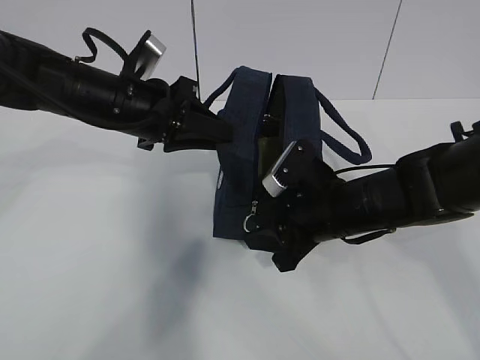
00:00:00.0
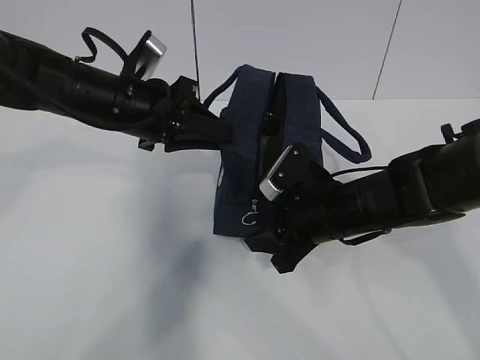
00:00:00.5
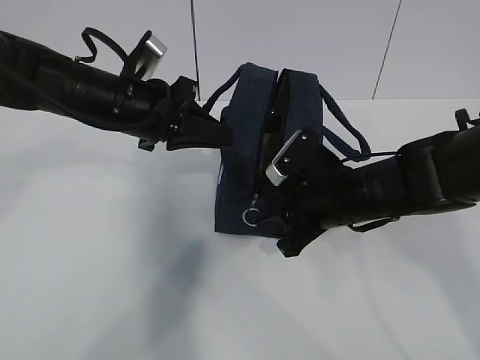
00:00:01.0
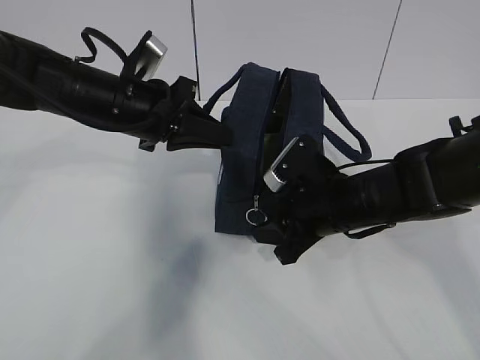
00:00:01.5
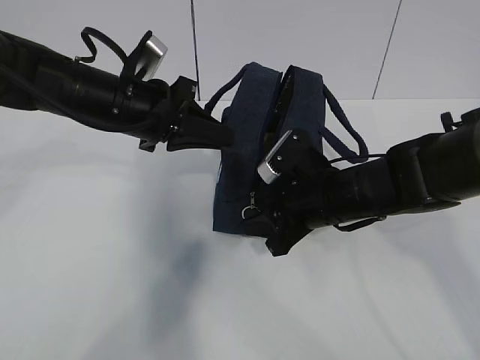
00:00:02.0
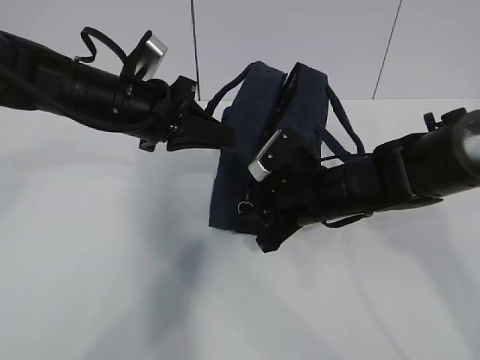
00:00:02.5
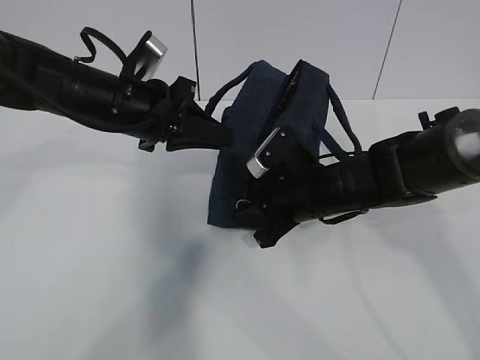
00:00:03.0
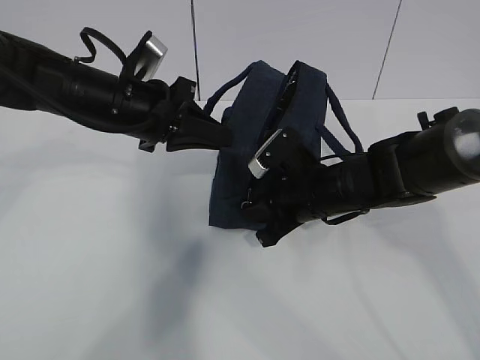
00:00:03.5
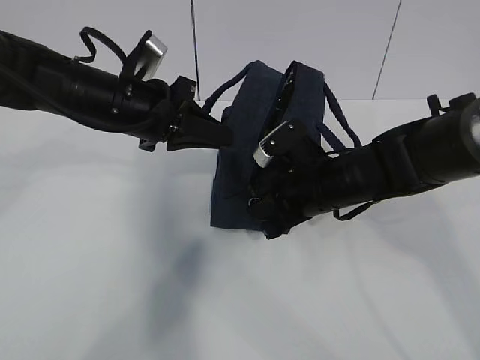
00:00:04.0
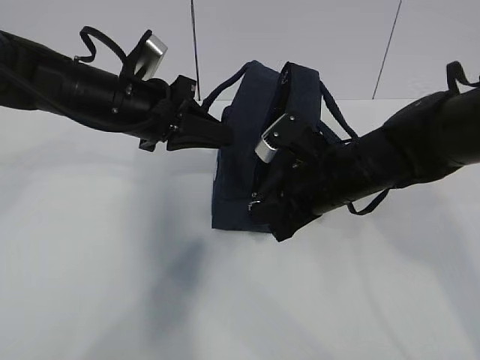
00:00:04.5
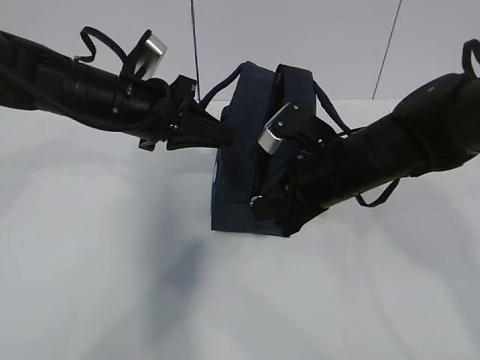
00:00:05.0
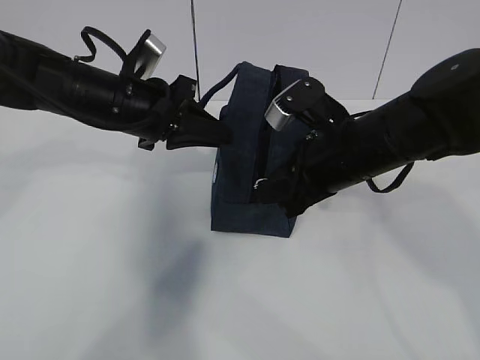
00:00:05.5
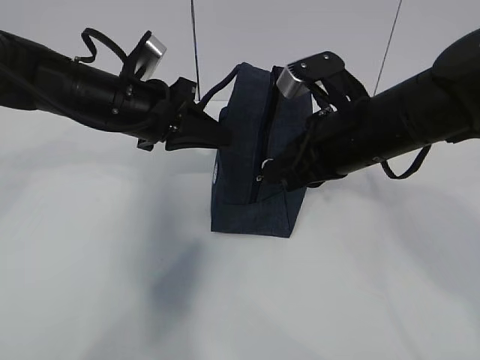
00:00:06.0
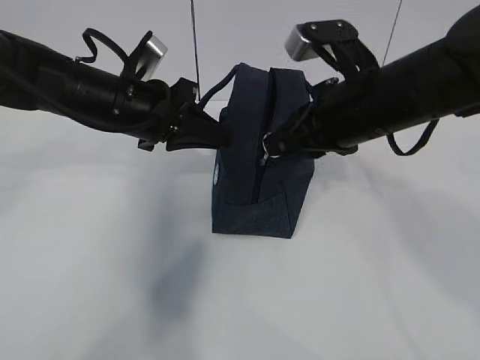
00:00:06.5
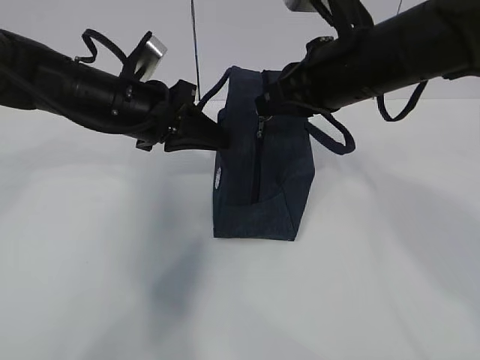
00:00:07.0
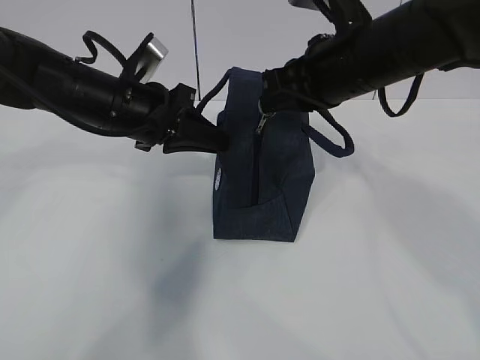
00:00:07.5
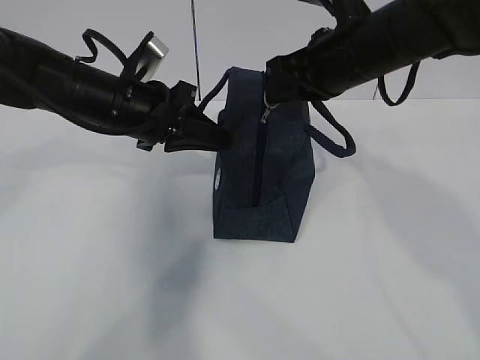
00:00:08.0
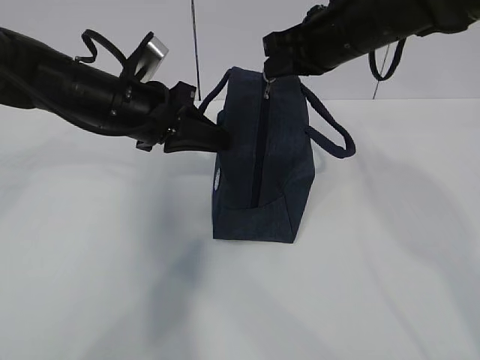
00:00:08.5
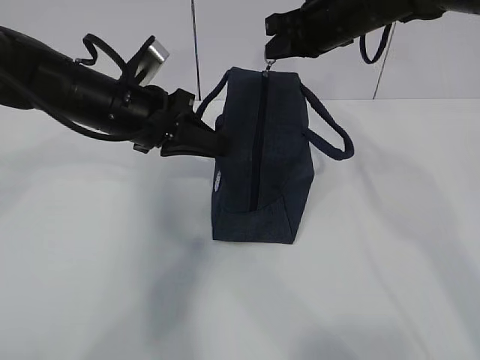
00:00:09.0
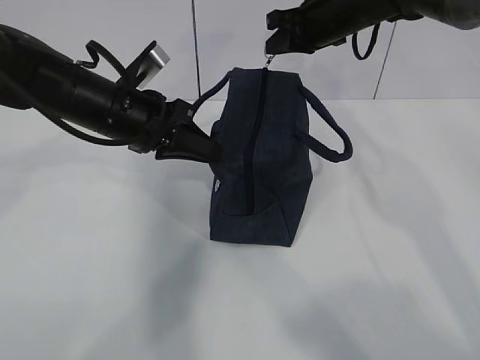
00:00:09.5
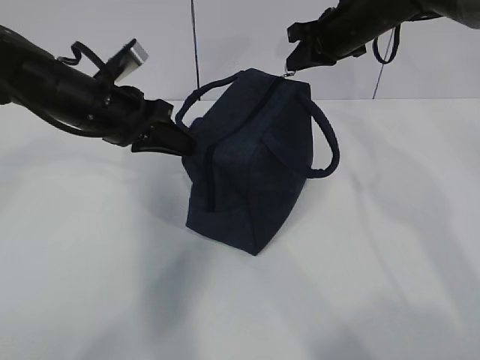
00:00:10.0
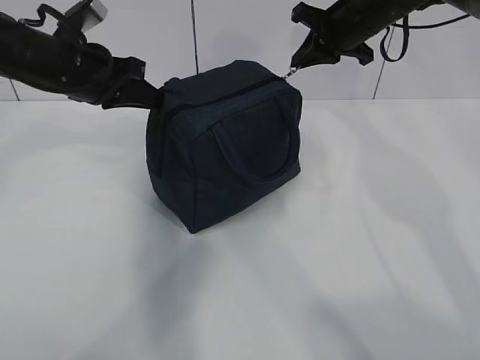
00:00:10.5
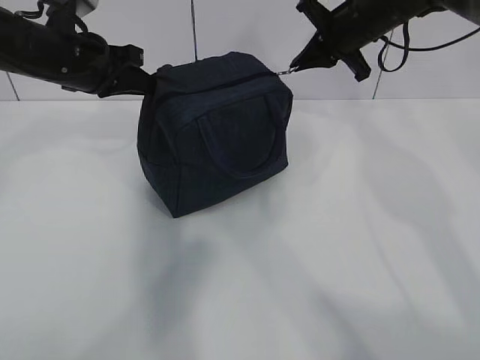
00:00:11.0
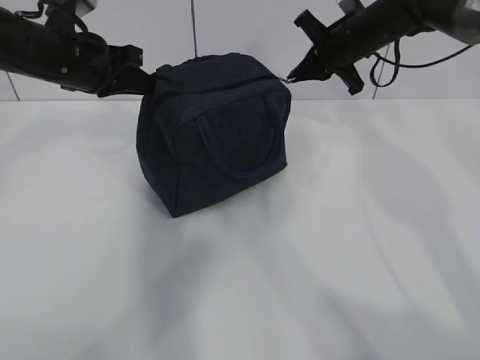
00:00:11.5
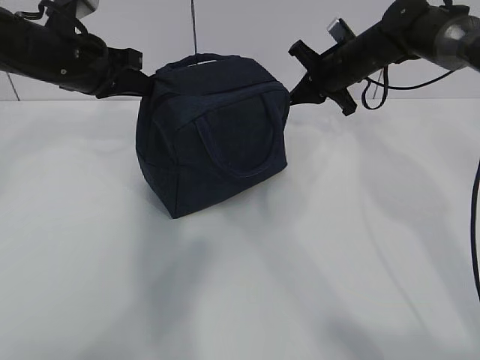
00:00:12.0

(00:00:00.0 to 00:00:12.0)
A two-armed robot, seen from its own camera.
Step, 00:00:00.0 - 00:00:04.0: Pull the zipper with your right hand.
00:00:00.0 - 00:00:02.0: The left gripper closes up.
00:00:02.0 - 00:00:04.0: The right gripper closes up.
00:00:04.0 - 00:00:06.0: The right gripper moves upward, roughly 10 cm.
00:00:06.0 - 00:00:08.0: The right gripper is displaced forward and upward by approximately 10 cm.
00:00:08.0 - 00:00:10.0: The right gripper goes roughly 15 cm forward.
00:00:10.0 - 00:00:12.0: The left gripper ends up roughly 5 cm from where it was; the right gripper heads downward, covering roughly 5 cm.

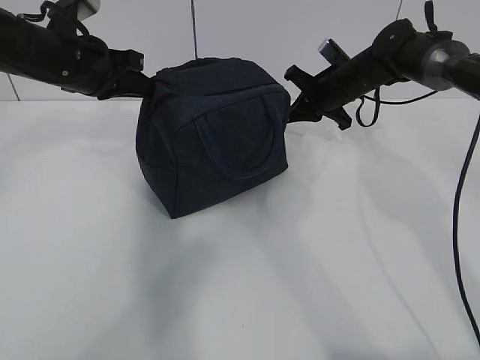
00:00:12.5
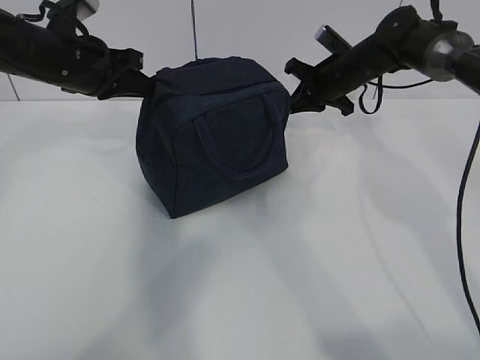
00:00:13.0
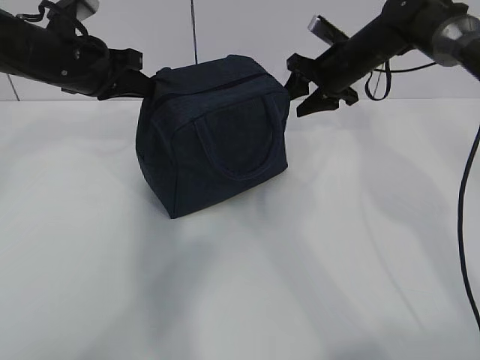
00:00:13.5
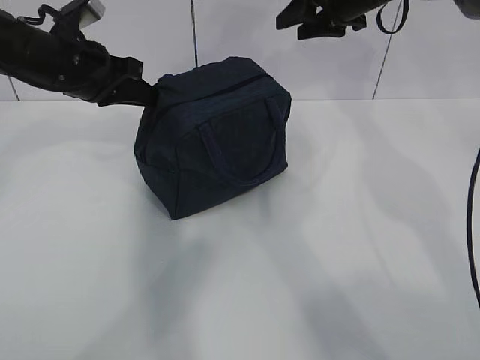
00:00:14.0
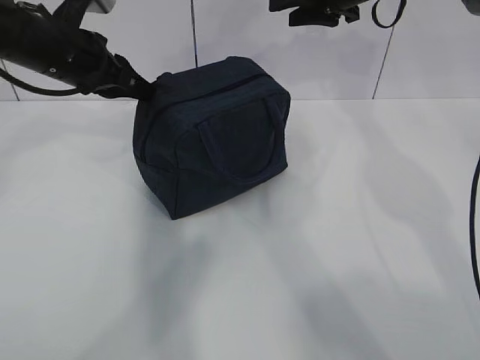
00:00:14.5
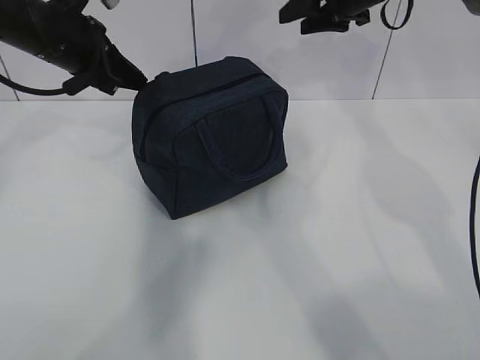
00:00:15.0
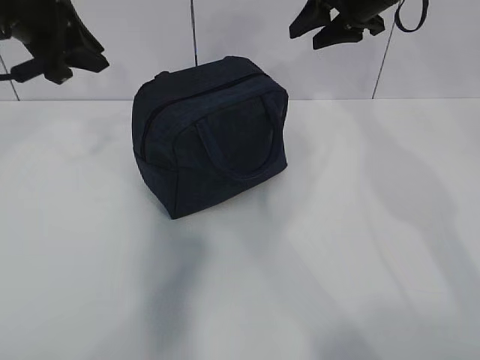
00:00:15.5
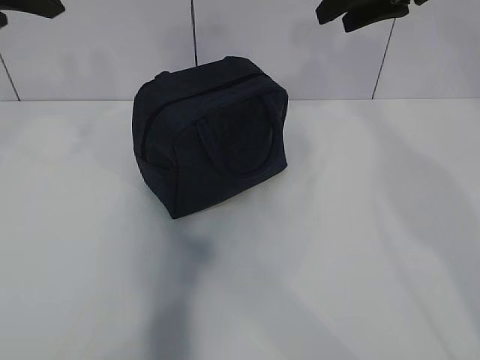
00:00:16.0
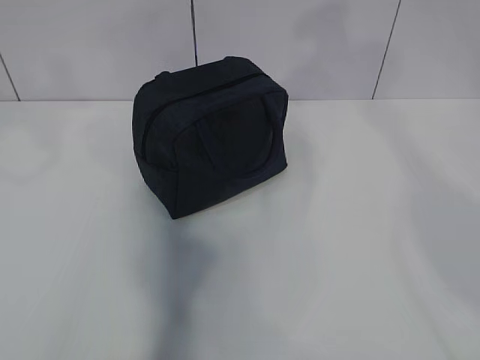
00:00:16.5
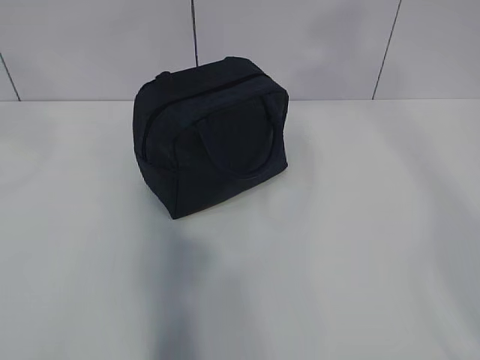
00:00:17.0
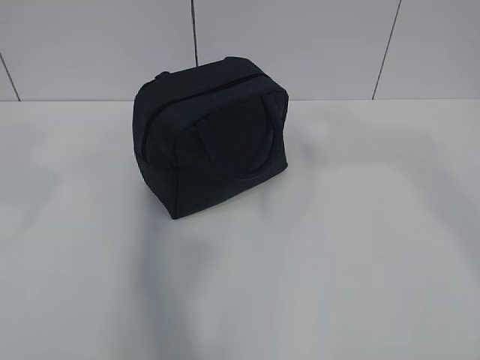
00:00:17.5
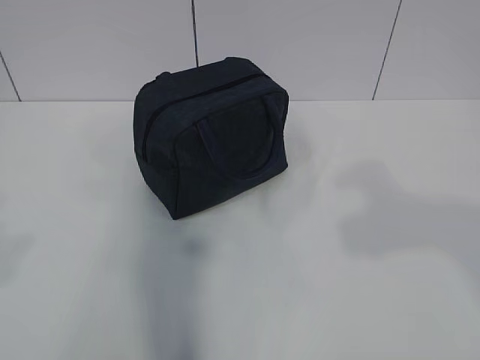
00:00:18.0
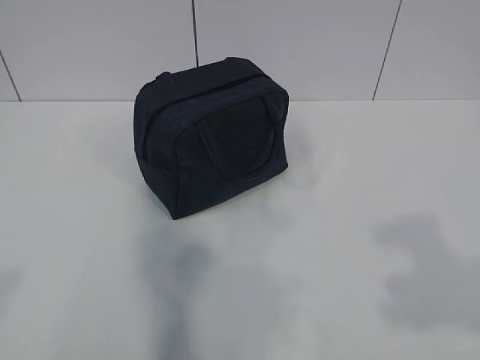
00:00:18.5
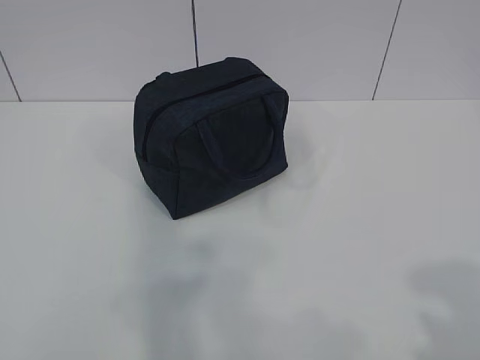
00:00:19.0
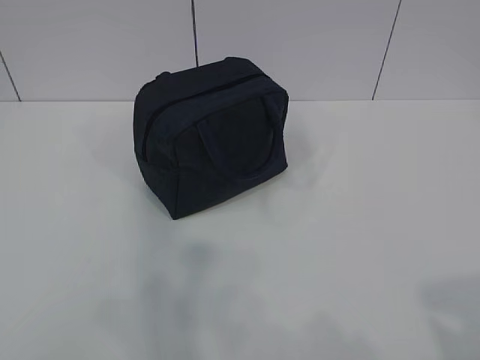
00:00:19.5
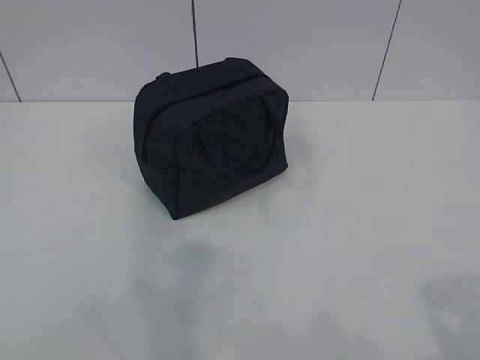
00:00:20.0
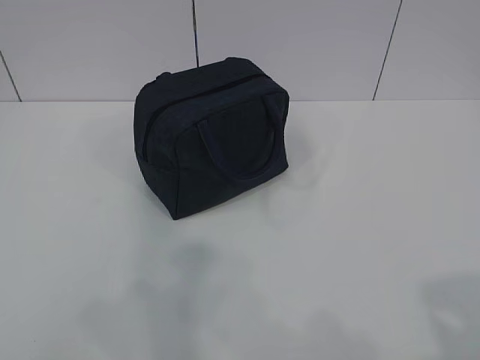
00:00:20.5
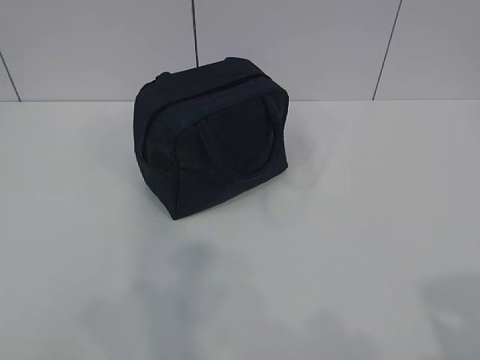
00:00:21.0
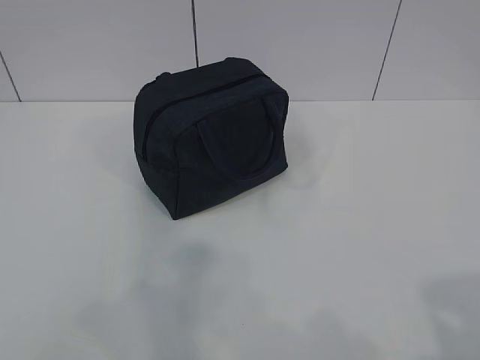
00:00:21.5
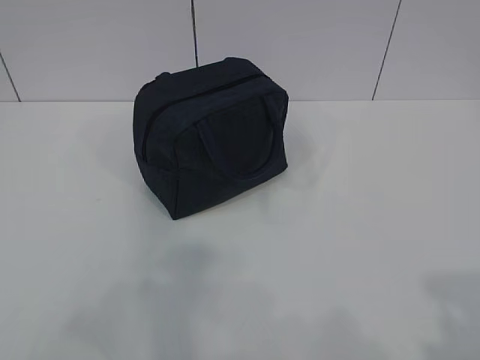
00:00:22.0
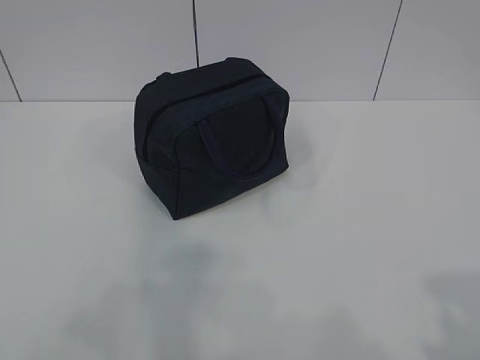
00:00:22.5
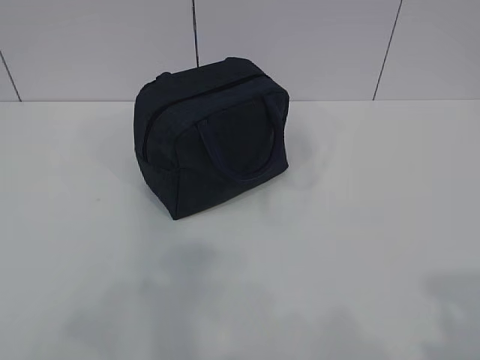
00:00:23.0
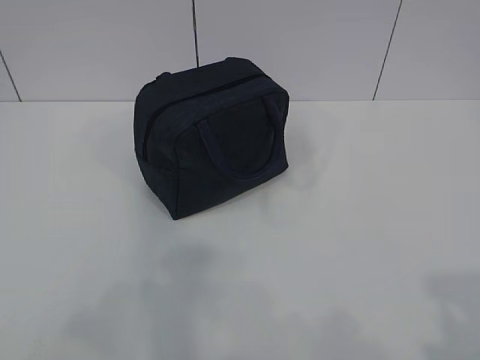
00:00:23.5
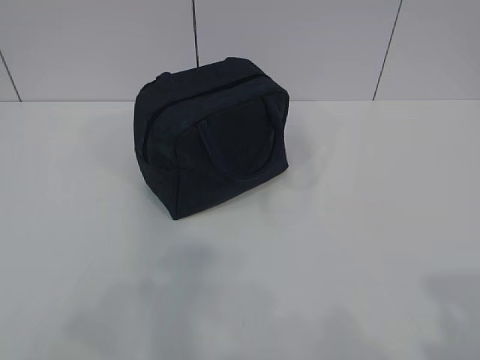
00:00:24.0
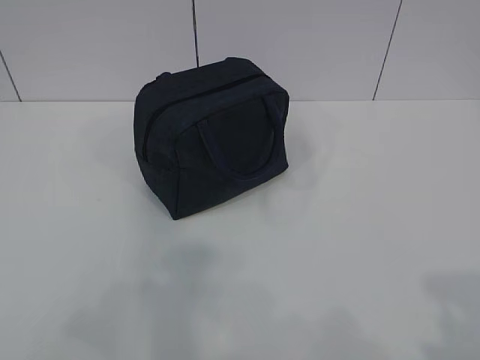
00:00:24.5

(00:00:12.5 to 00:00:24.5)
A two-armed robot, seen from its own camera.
00:00:12.5 - 00:00:14.5: The right gripper is displaced upward by some 15 cm, and opens up.
00:00:14.5 - 00:00:16.5: The left gripper is displaced upward and backward by approximately 25 cm. Meanwhile the right gripper travels backward and upward by about 25 cm.
00:00:16.5 - 00:00:18.5: Both grippers travel together backward and downward, roughly 30 cm. The left gripper opens.
00:00:22.5 - 00:00:24.5: Both grippers stay put.

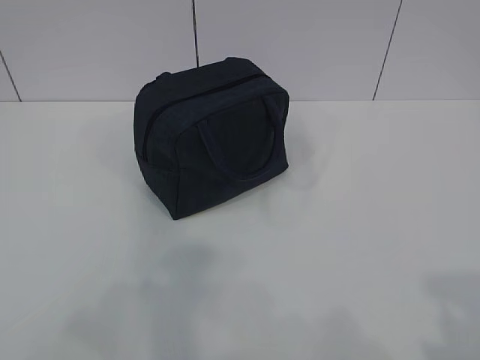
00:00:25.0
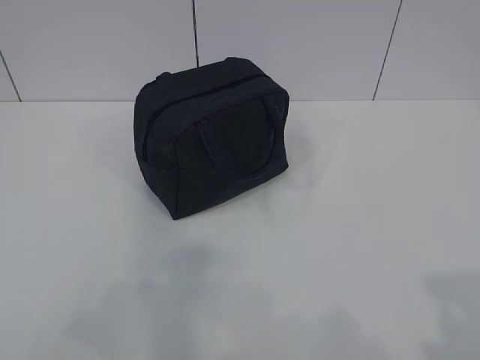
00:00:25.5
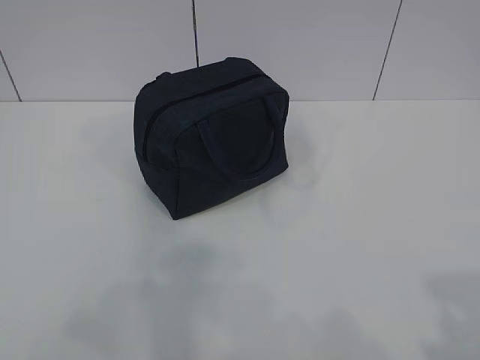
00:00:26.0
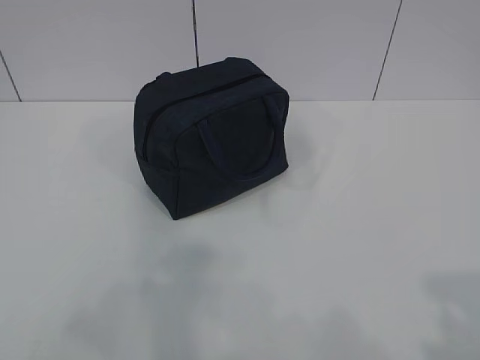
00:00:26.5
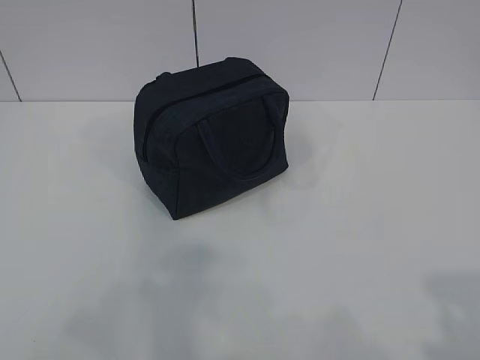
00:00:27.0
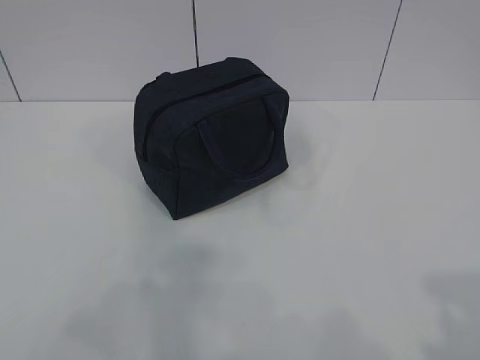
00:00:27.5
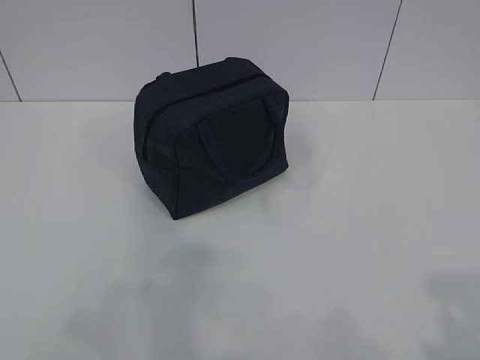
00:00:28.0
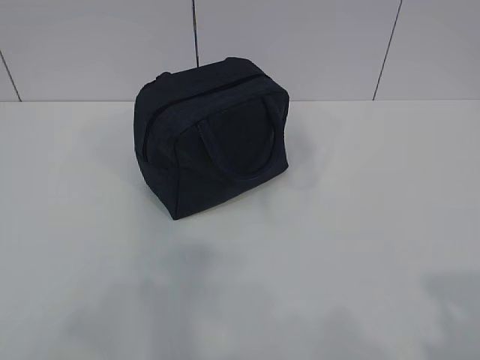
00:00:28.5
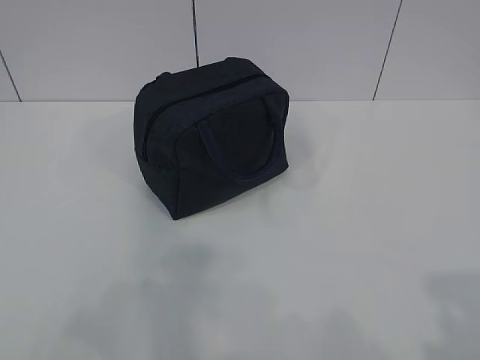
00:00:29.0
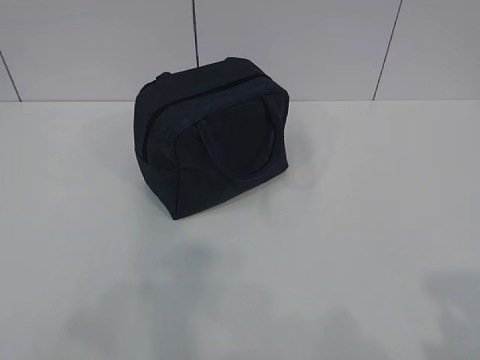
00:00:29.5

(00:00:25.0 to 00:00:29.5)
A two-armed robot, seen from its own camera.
00:00:25.0 - 00:00:29.5: Both grippers stay put.
